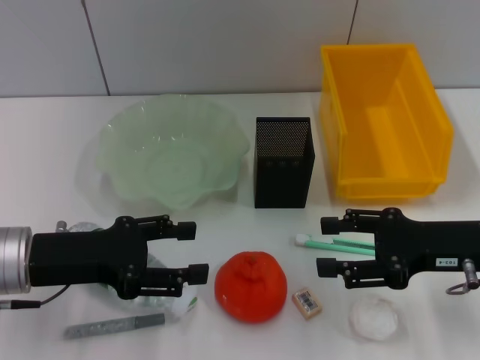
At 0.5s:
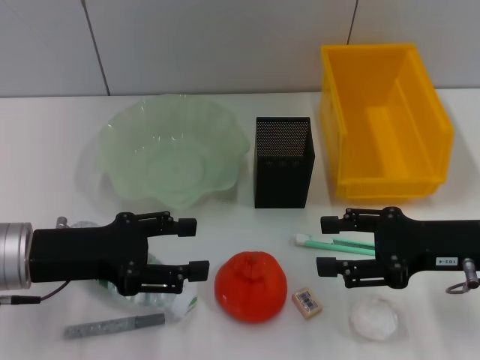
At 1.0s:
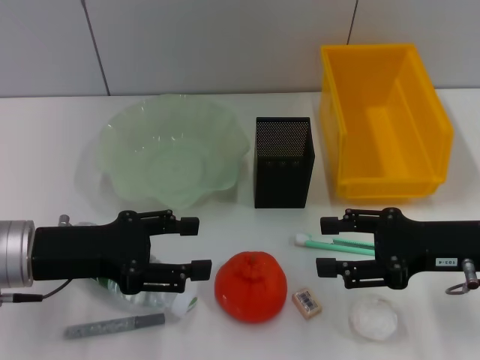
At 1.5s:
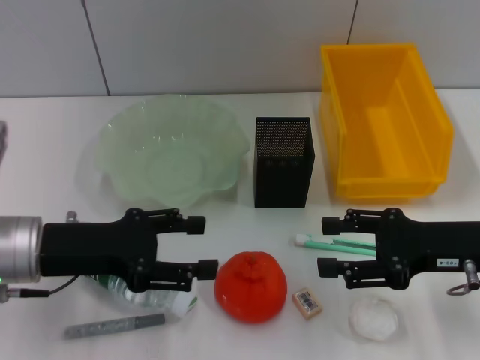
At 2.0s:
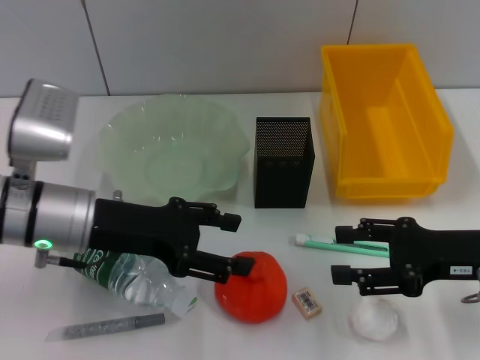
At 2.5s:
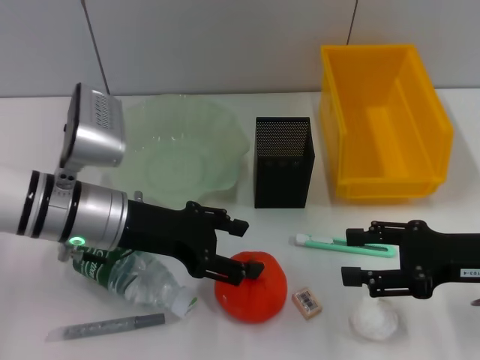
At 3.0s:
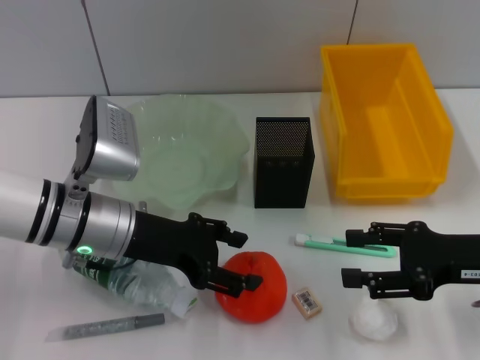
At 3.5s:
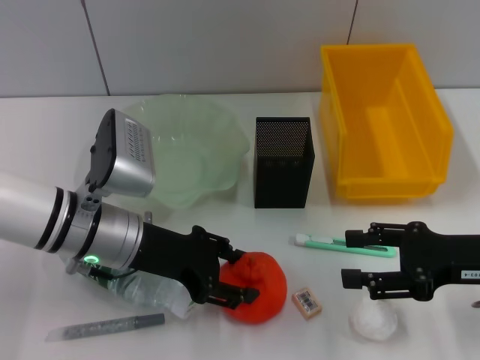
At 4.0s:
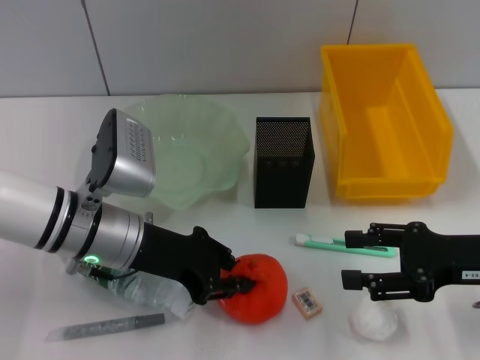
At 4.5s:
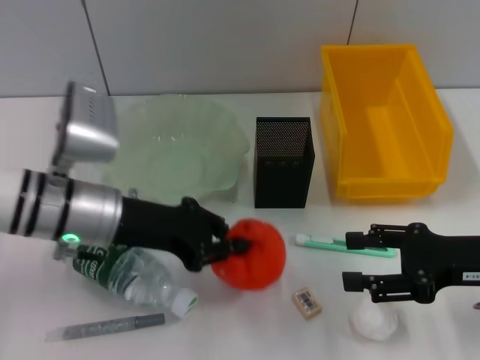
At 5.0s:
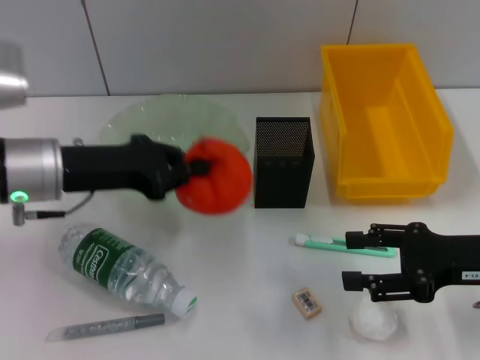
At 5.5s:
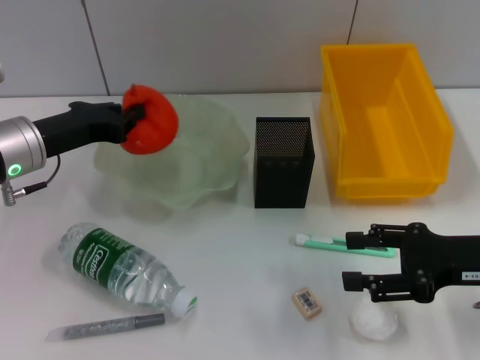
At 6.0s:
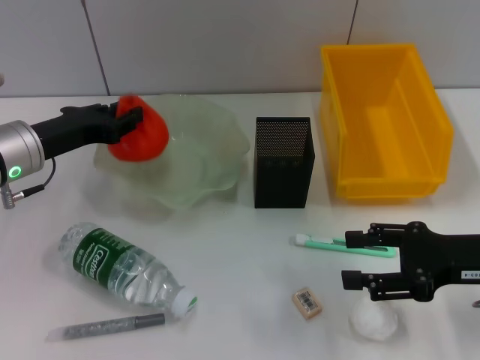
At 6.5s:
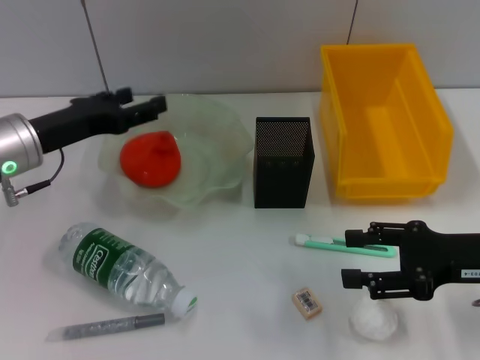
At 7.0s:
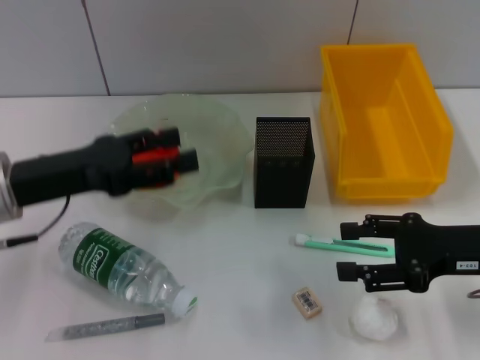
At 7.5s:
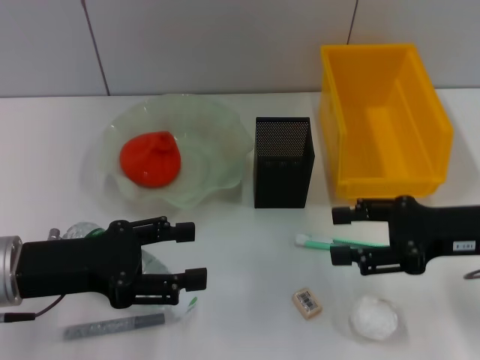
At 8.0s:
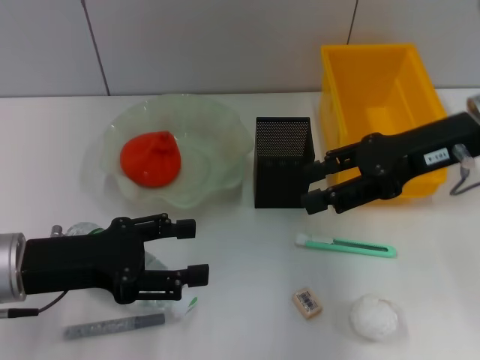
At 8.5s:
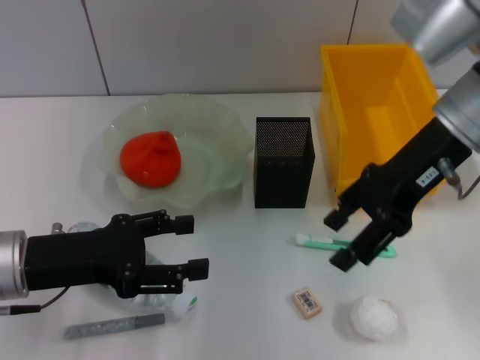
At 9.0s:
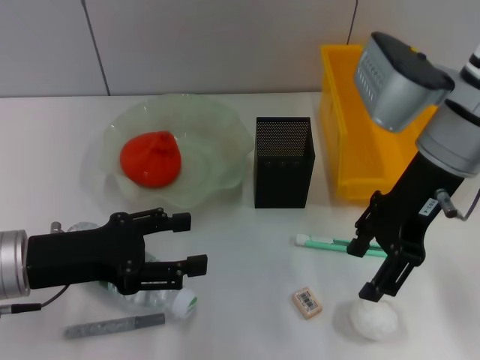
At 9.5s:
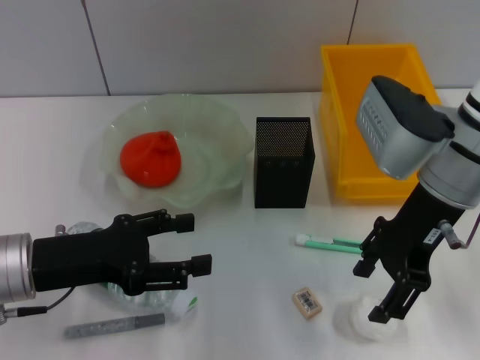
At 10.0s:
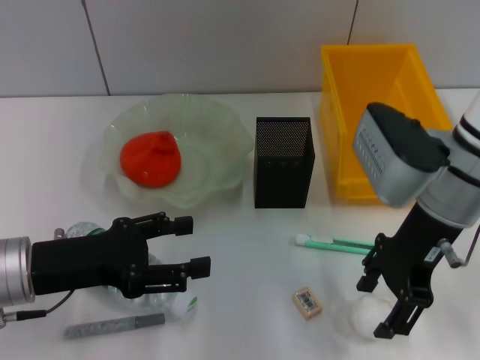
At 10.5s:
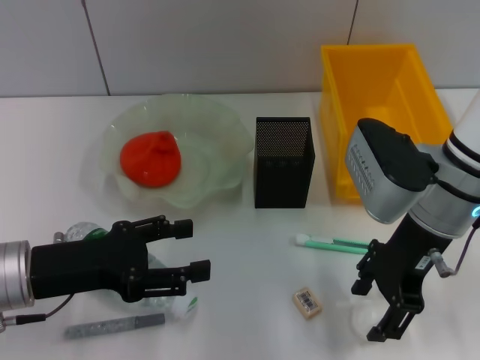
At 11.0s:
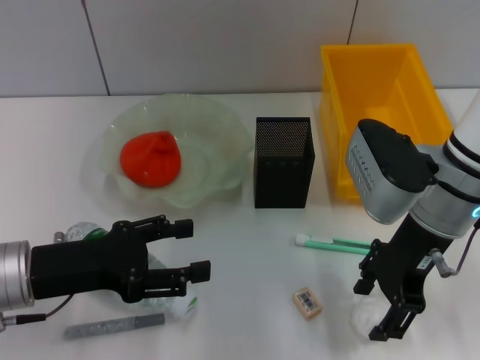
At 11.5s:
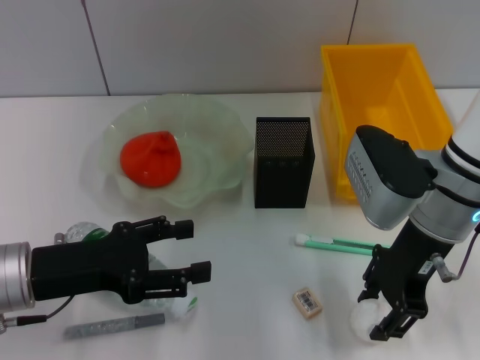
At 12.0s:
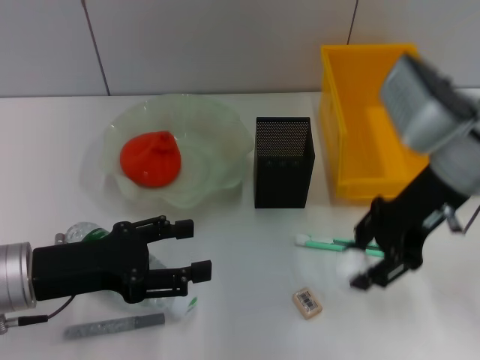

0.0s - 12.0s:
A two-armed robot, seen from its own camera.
Step, 0.0s - 4.0s: Grab the orange with the left hand.
Step, 4.5s - 6.0s: Place the orange into the fruit bowl with the left hand.
Step, 6.5s - 11.5s: Grab the paper ball with the right hand.
0.0s - 2.0s: The left gripper heads to the right, covering about 5 cm.
2.0s - 4.0s: The left gripper closes up.
4.0s - 6.0s: The left gripper moves to the left, roughly 10 cm.
6.0s - 8.0s: The left gripper is displaced backward by roughly 10 cm, and opens its fingers. Meanwhile the right gripper goes approximately 15 cm upward, forward and to the left.
8.0s - 10.0s: The right gripper shifts about 5 cm to the left.
10.0s - 12.0s: The right gripper closes up.

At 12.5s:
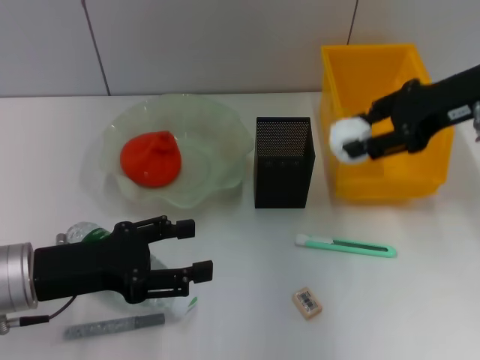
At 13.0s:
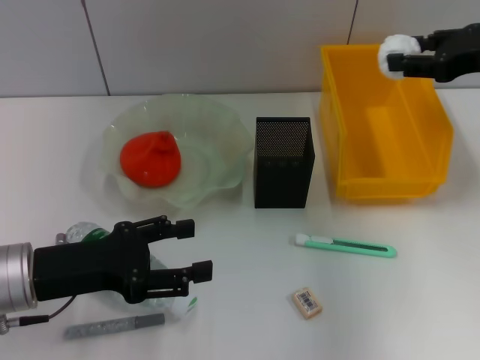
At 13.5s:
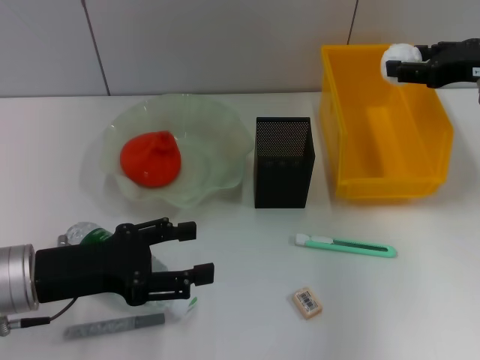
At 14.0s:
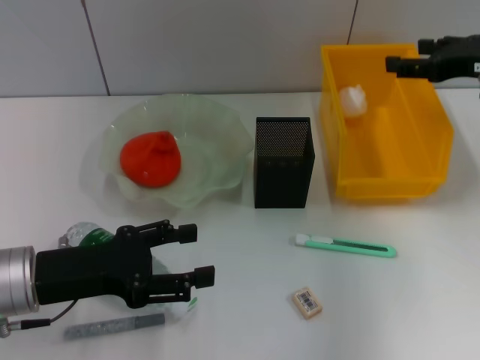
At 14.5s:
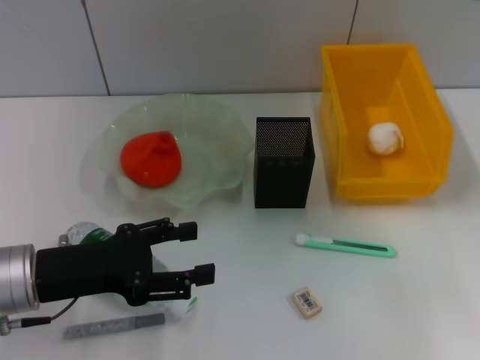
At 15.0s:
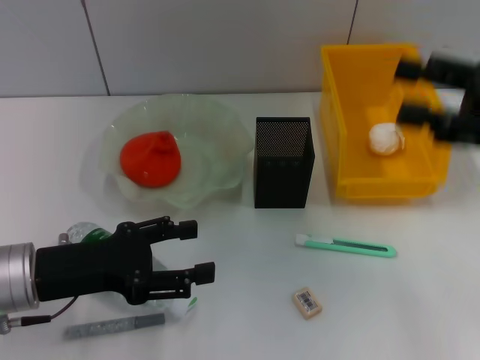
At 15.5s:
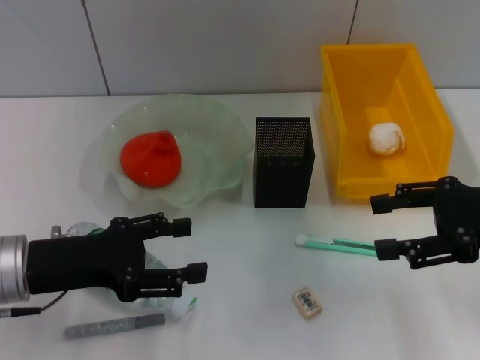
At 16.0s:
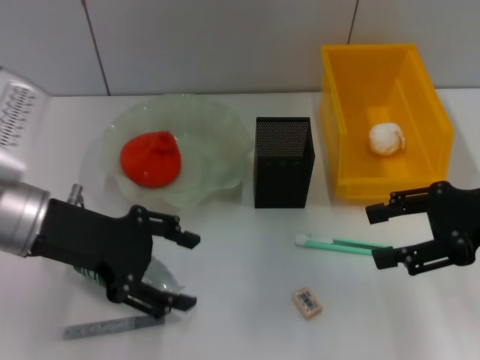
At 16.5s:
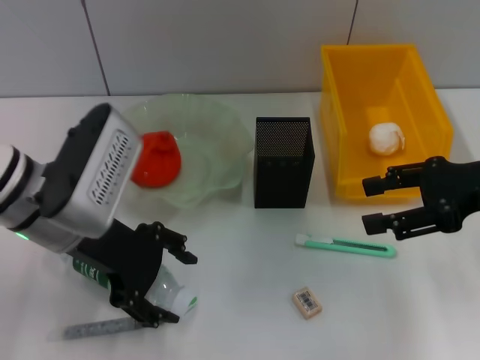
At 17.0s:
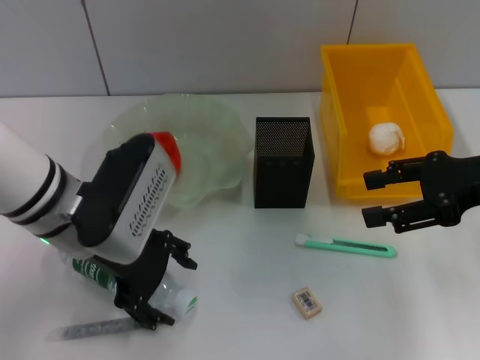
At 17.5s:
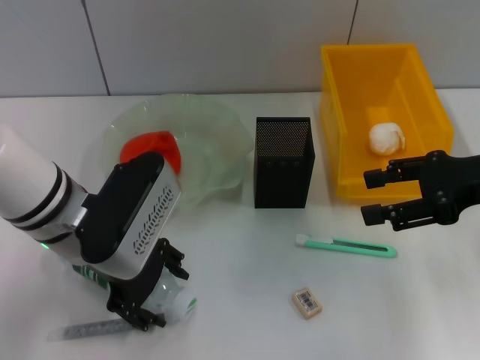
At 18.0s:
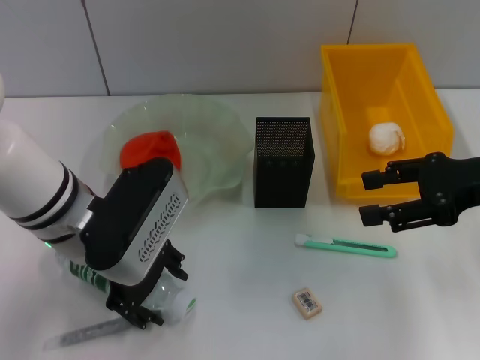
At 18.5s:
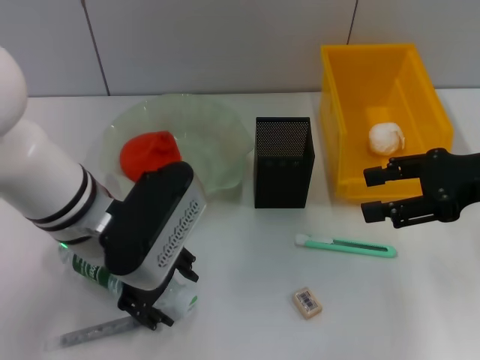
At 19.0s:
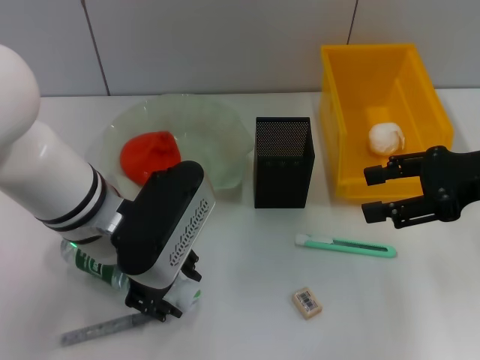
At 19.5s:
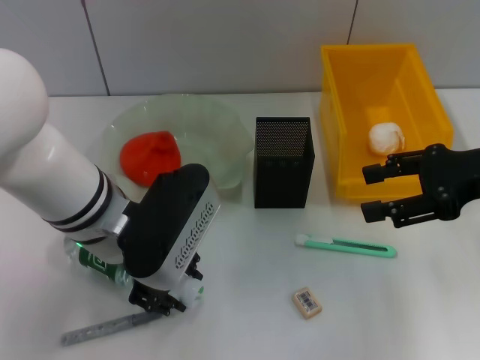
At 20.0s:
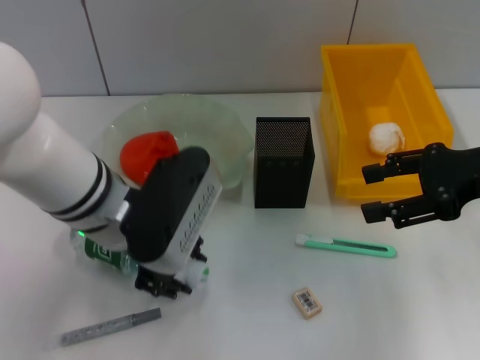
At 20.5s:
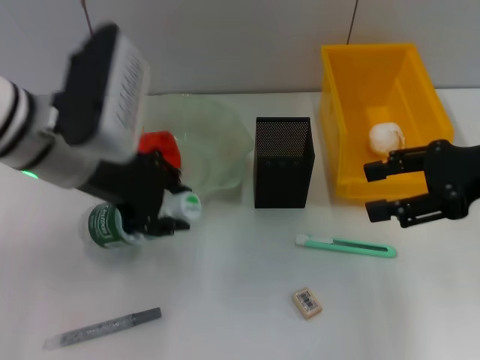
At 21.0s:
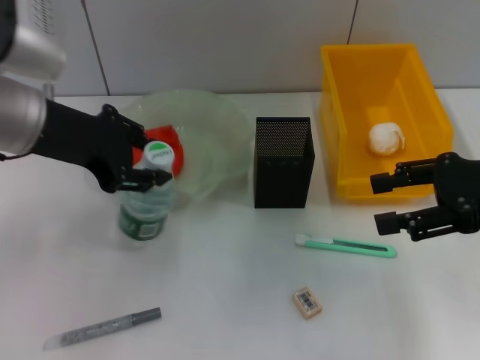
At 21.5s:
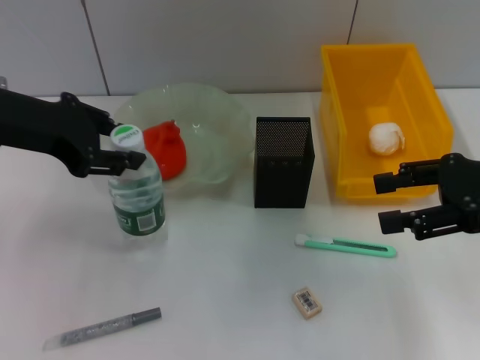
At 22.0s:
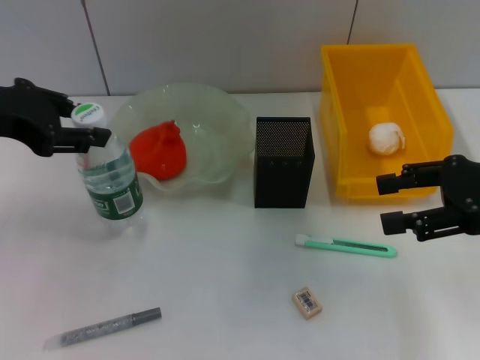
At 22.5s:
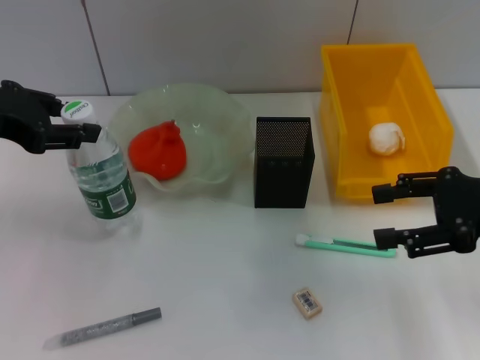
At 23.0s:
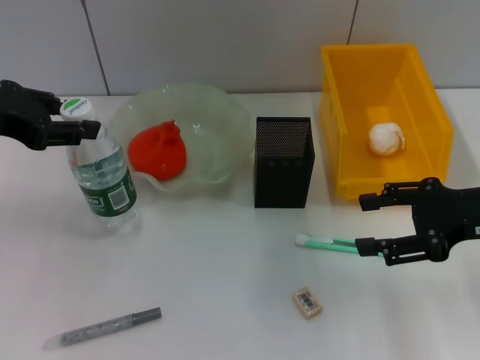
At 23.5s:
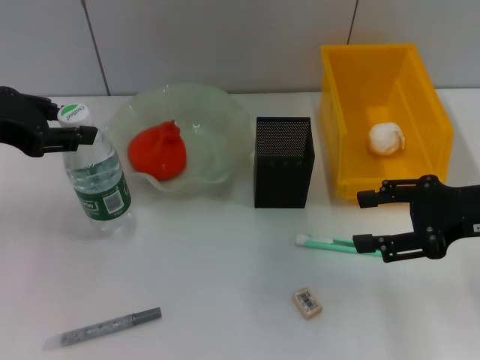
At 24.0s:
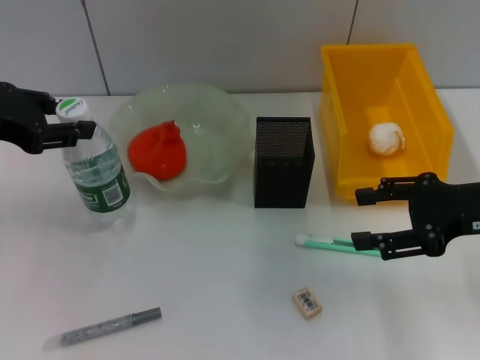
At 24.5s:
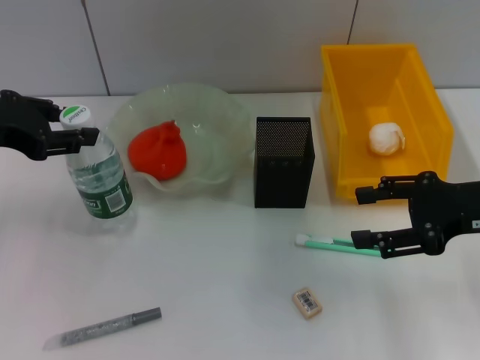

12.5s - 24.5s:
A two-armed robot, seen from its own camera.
Step, 14.0s - 19.5s: Grab the water bottle with the left hand.
12.5s - 14.5s: The right gripper heads to the right, covering approximately 5 cm, and opens up.
14.5s - 16.5s: The left gripper moves upward, forward and to the right, approximately 10 cm. Meanwhile the right gripper travels downward by some 5 cm.
18.5s - 20.5s: The left gripper is displaced upward by approximately 5 cm, and closes up.
20.5s - 22.5s: The left gripper moves to the left, roughly 10 cm.
22.5s - 24.5s: The grippers move only a little.

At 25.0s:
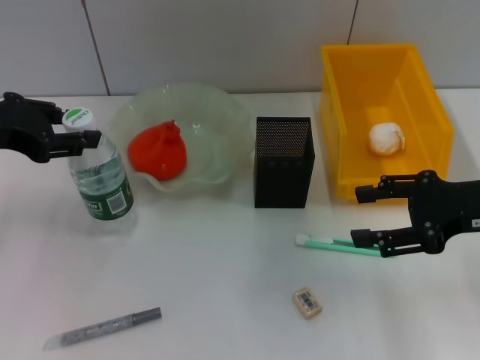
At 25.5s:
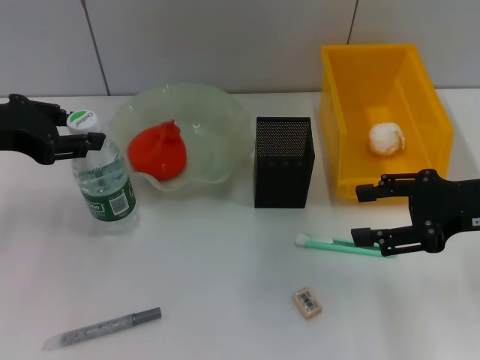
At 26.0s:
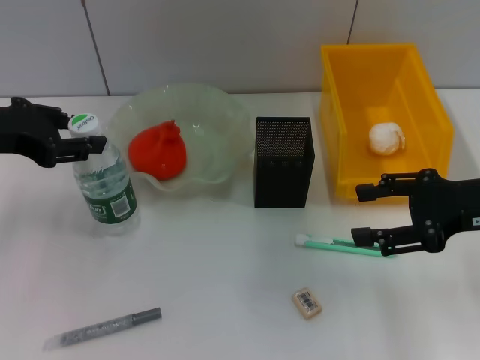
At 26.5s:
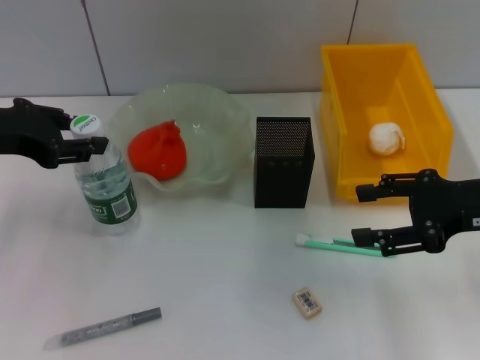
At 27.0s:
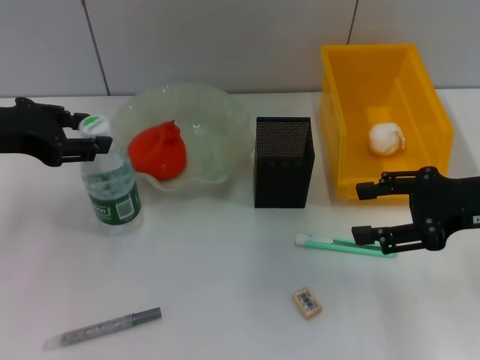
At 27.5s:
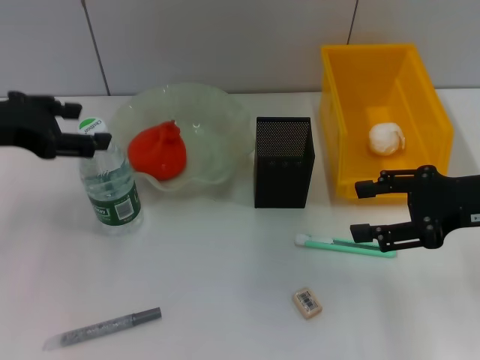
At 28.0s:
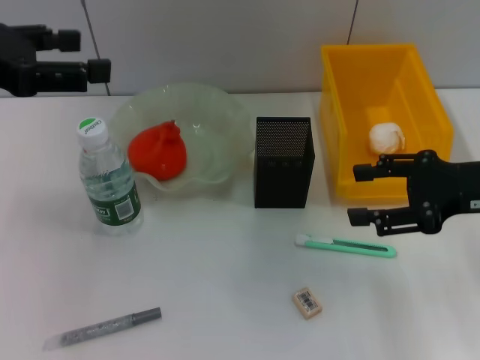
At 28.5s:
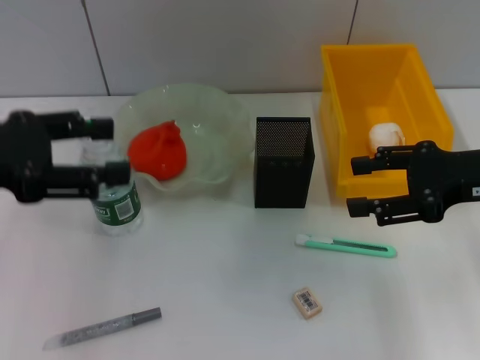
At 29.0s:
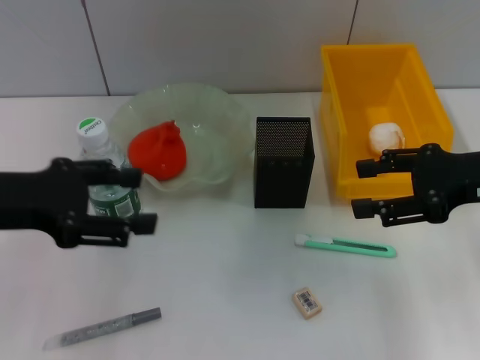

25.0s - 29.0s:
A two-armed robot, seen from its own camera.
Step, 25.0s - 27.0s: Place the water bottle on the table with the left hand.
25.0s - 27.0s: Both grippers stay put.
27.0s - 29.0s: The left gripper is displaced backward by roughly 5 cm, reaches about 5 cm upward, then returns, and opens up.
